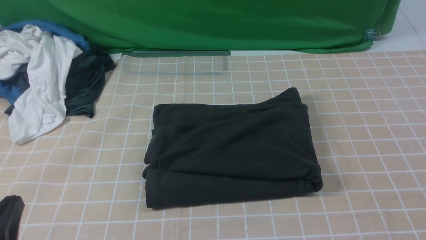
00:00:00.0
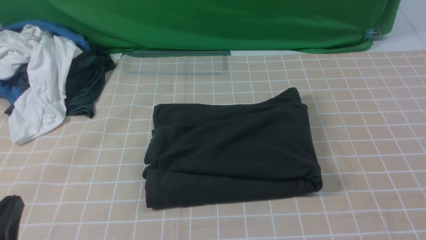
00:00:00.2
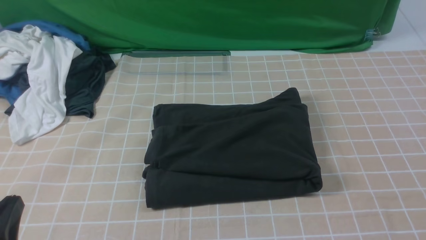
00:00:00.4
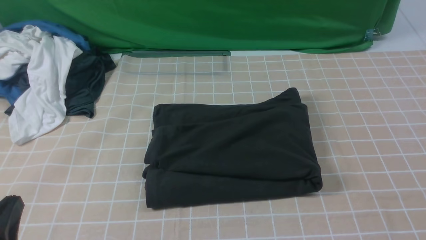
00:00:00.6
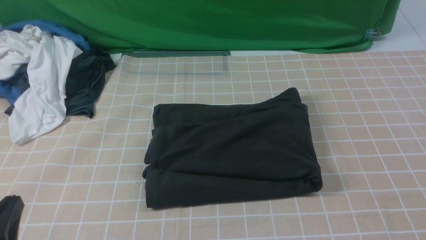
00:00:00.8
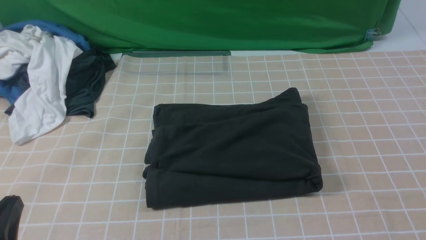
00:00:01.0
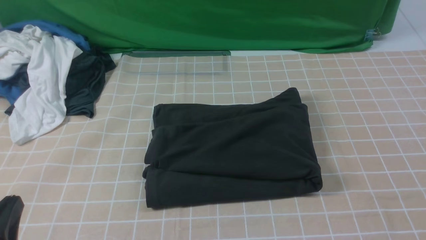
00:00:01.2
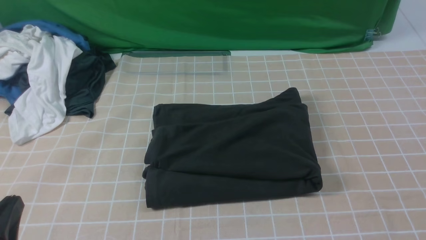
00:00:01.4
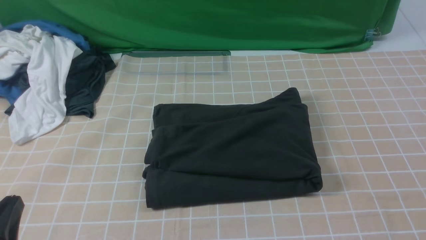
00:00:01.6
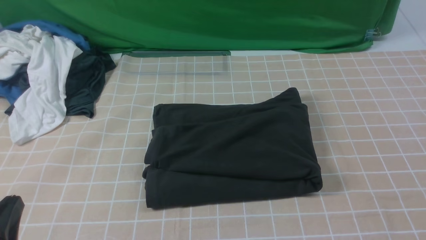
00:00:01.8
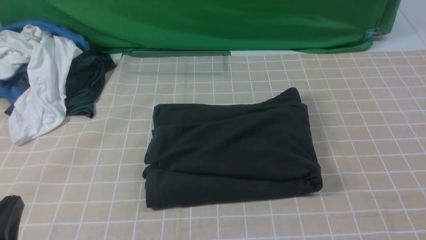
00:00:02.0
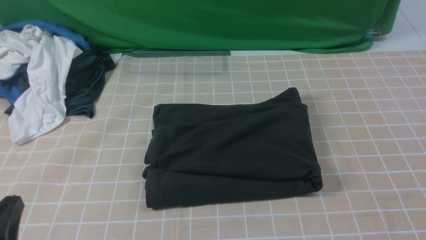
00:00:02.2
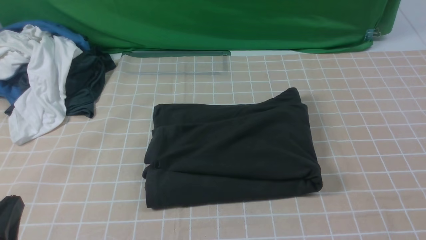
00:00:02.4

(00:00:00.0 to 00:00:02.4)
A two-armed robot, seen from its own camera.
00:00:01.2 - 00:00:02.4: Both grippers stay put.

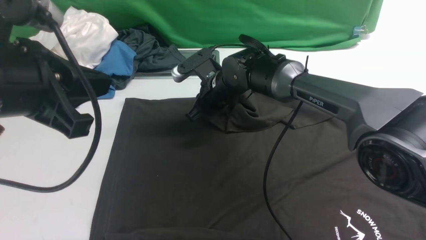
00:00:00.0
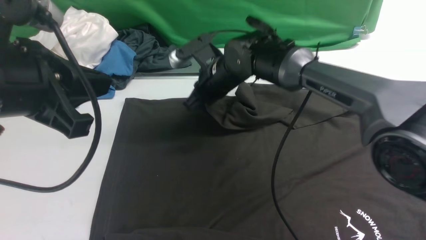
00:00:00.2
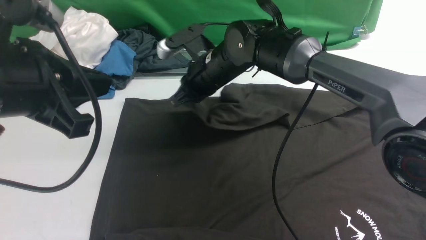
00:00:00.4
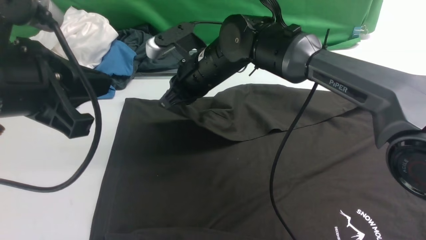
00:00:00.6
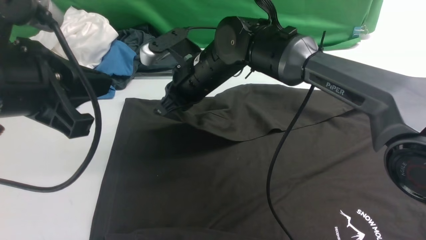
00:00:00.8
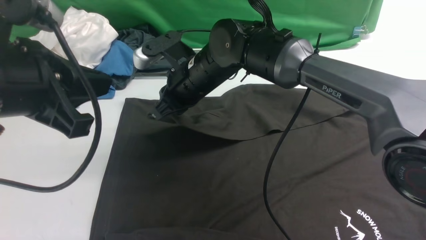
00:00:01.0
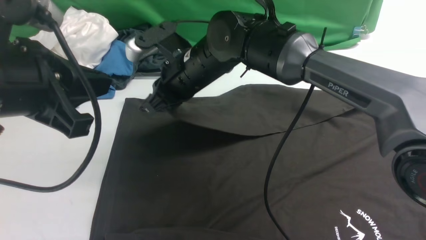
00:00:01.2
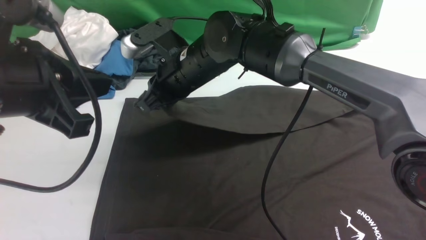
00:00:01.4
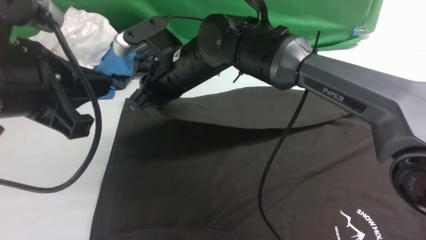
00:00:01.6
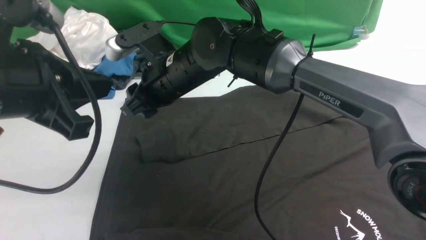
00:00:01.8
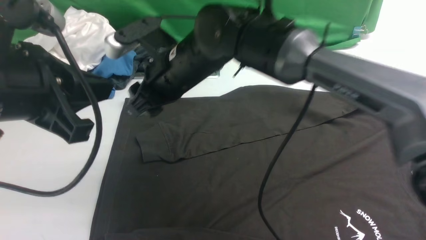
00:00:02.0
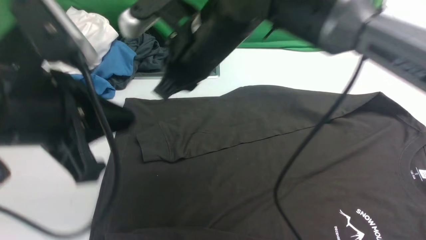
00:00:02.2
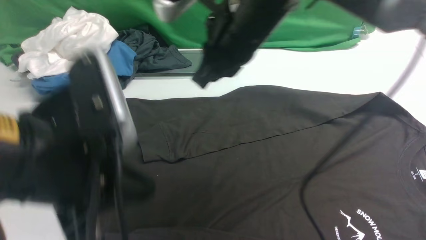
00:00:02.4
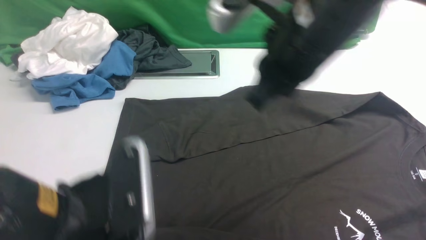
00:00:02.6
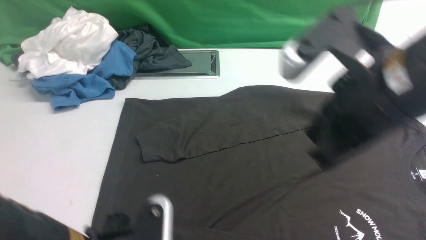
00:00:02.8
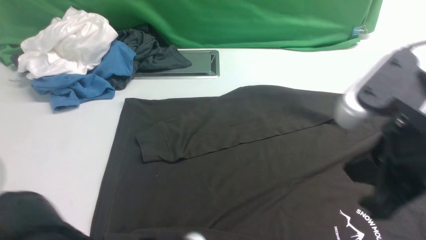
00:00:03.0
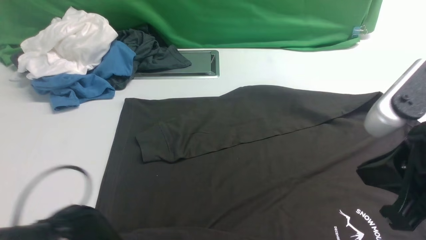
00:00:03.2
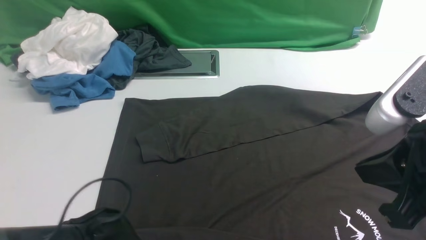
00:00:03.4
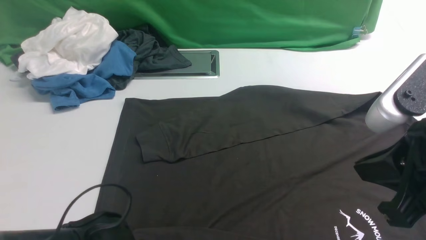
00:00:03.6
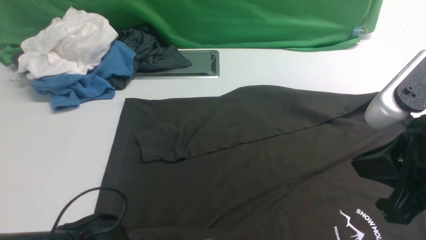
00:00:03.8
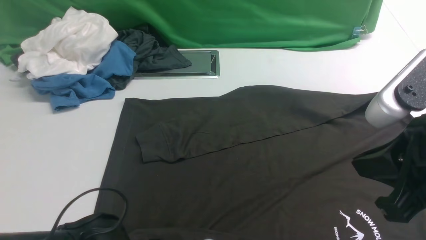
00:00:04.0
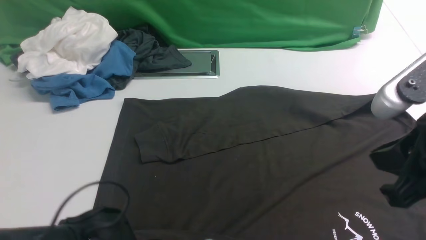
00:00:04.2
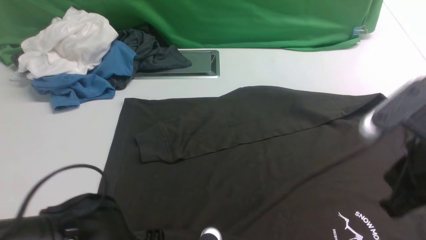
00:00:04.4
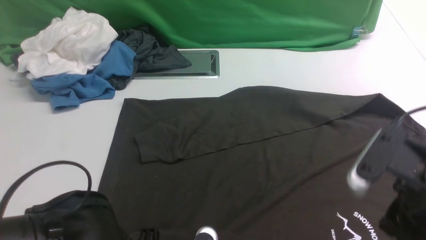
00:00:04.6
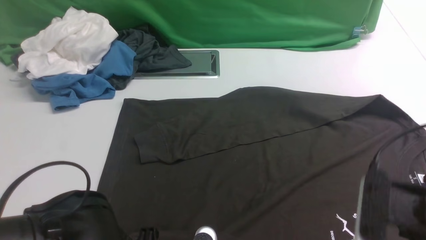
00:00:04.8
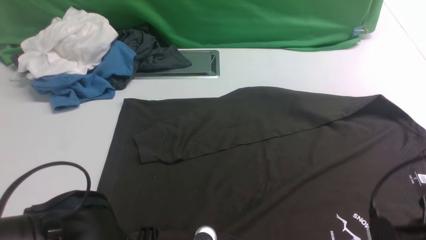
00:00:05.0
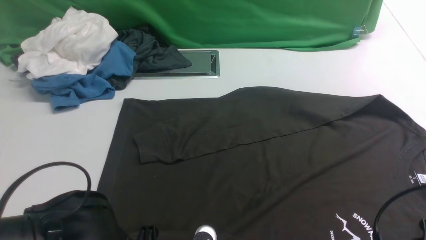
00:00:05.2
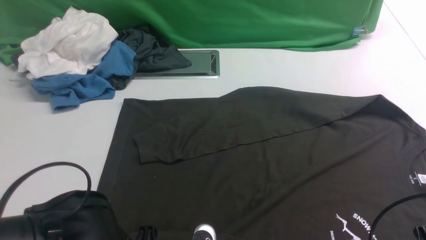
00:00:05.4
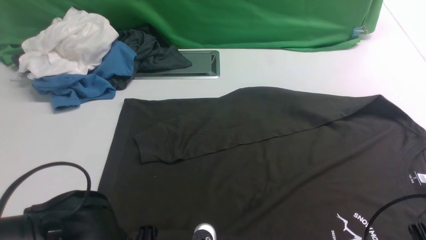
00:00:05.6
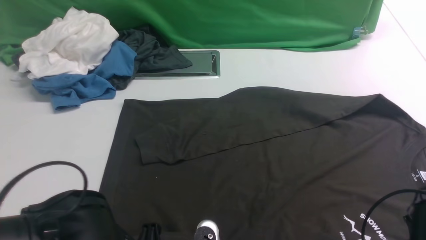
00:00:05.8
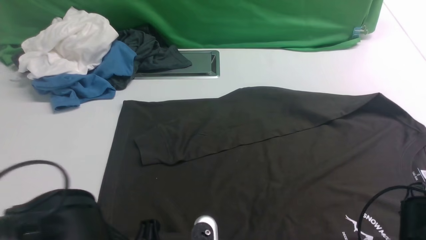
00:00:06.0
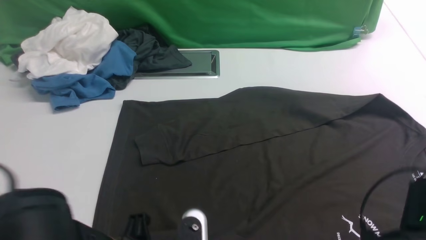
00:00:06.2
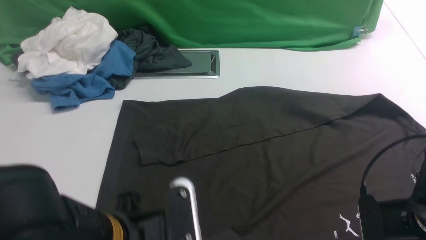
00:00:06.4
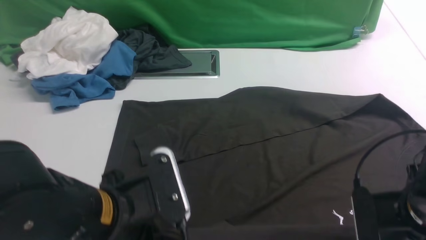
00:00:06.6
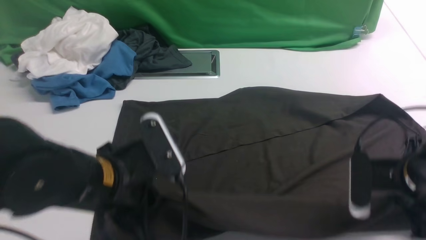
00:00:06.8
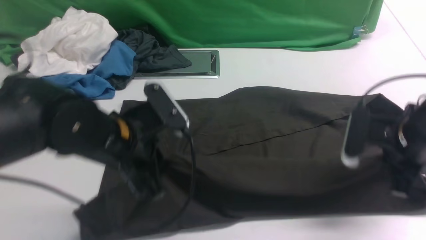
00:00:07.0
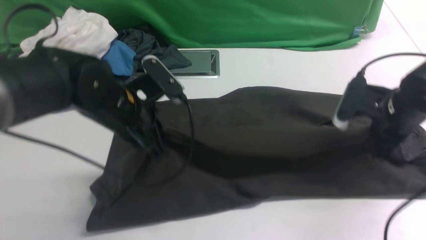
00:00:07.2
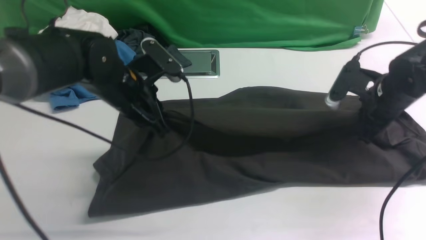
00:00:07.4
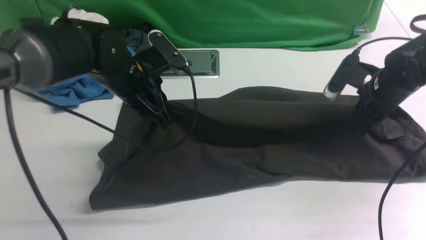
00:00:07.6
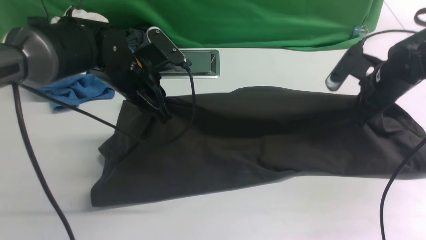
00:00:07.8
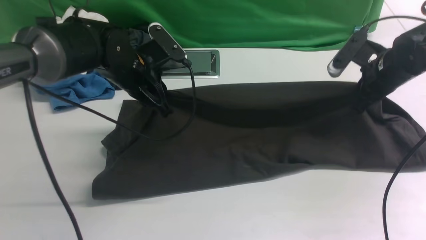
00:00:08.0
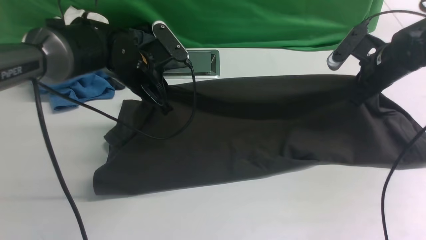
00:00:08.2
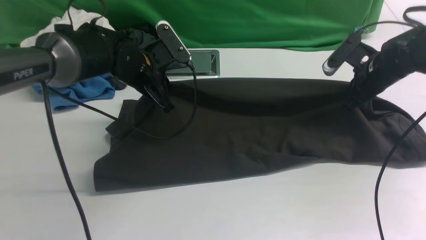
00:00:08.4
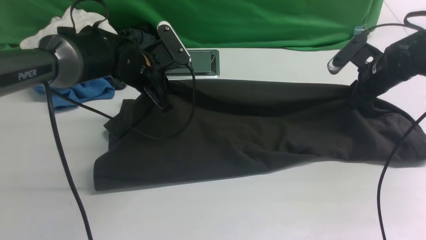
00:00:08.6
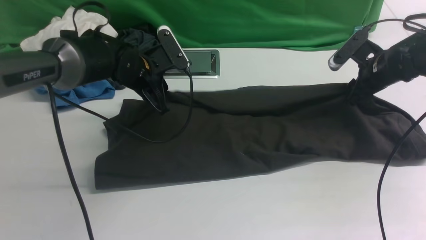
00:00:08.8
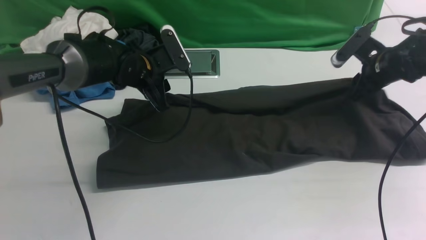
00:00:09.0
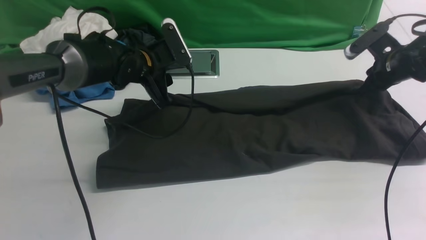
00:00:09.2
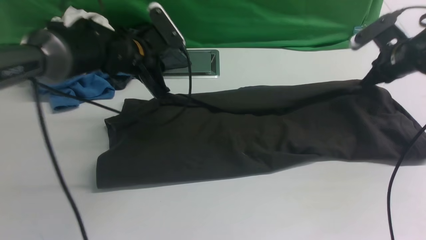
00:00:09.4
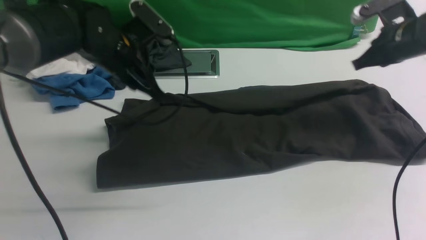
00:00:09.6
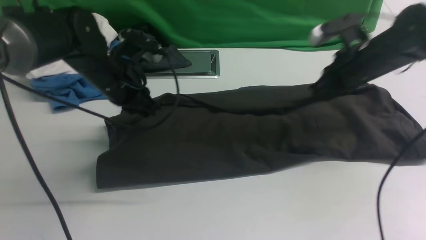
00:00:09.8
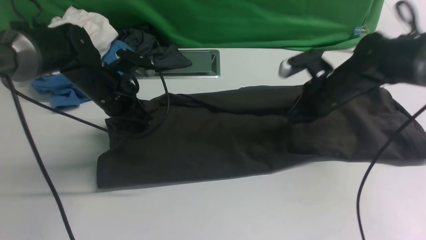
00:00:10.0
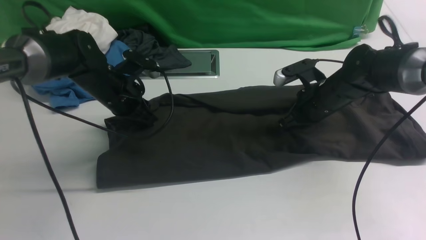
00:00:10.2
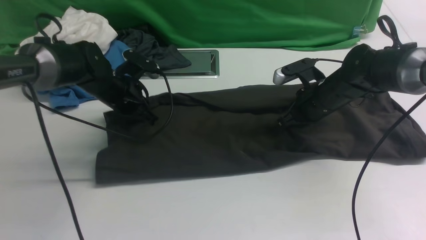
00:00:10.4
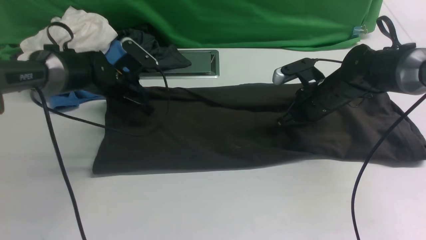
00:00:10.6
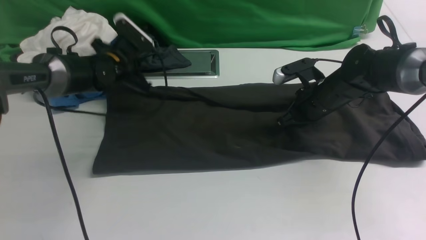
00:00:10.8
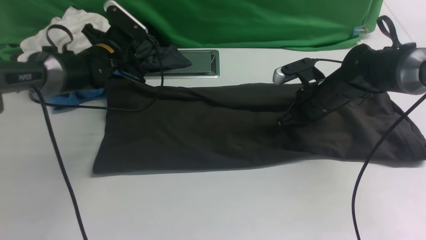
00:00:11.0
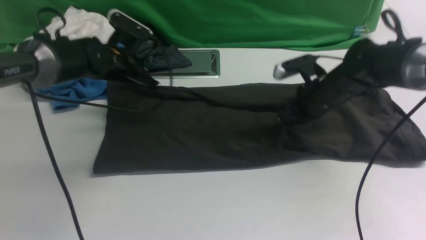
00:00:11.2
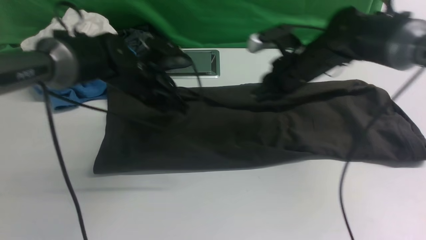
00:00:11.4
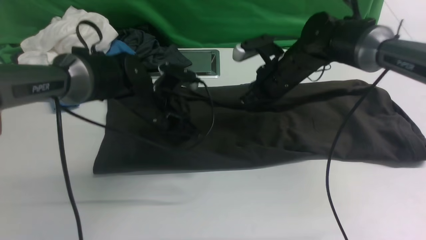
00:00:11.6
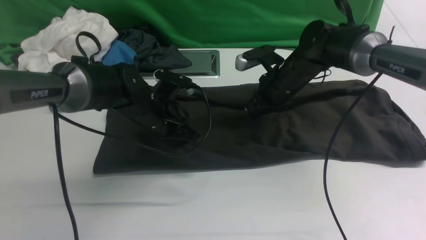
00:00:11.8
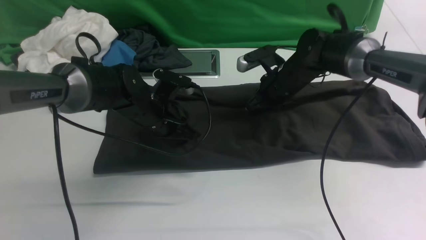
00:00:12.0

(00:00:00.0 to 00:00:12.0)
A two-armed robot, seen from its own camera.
Step, 00:00:00.4 - 00:00:02.0: use the right arm to drag and drop the cuff onto the cuffclosest to the right arm.
Step, 00:00:02.2 - 00:00:06.6: use both arms simultaneously to clamp the lower edge of the clothing fabric.
Step, 00:00:06.8 - 00:00:09.4: use both arms to drag the lower edge of the fabric forward and fold it over the upper edge.
00:00:00.0 - 00:00:01.6: The right gripper is displaced upward, backward and to the left by roughly 15 cm.
00:00:01.6 - 00:00:03.0: The left gripper is displaced downward, to the right and backward by some 20 cm; the right gripper goes roughly 30 cm to the right and backward.
00:00:03.0 - 00:00:04.4: The right gripper shifts approximately 5 cm downward; the left gripper opens and closes again.
00:00:04.4 - 00:00:06.0: The right gripper moves downward, roughly 15 cm, and opens, then closes again.
00:00:06.0 - 00:00:07.6: The two grippers go some 25 cm forward.
00:00:07.6 - 00:00:09.0: The two grippers go roughly 5 cm forward. The left gripper opens up. Meanwhile the right gripper opens up.
00:00:09.0 - 00:00:10.4: The right gripper heads to the left, covering about 15 cm, and closes its fingers; the left gripper goes about 5 cm to the left, and closes up.
00:00:10.4 - 00:00:12.0: The left gripper heads to the right and backward, covering about 10 cm. The right gripper travels to the left and forward by about 10 cm.

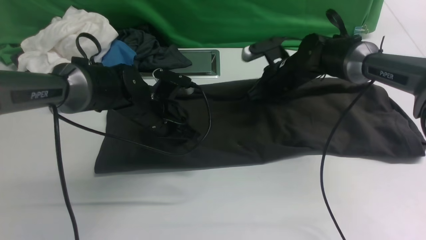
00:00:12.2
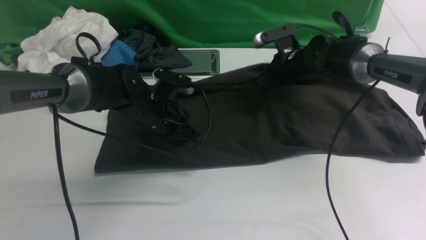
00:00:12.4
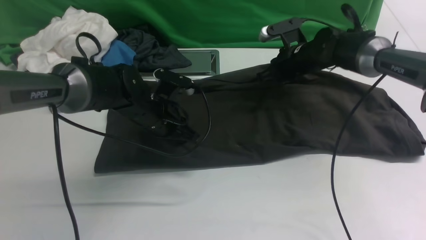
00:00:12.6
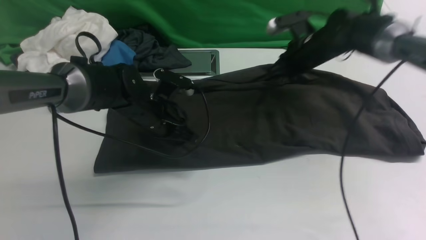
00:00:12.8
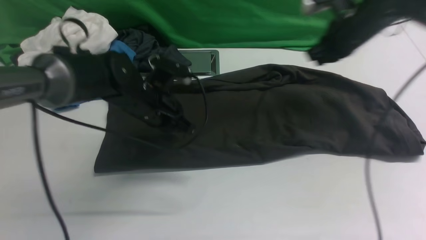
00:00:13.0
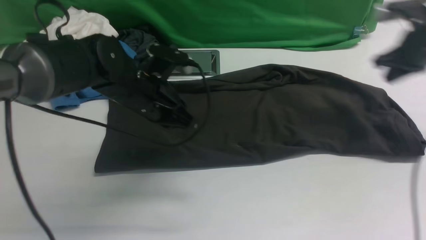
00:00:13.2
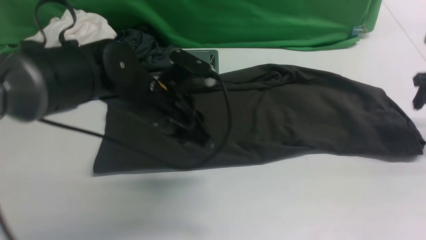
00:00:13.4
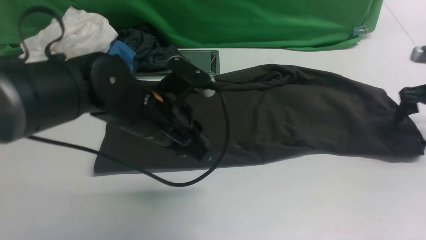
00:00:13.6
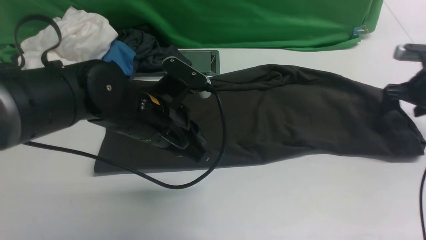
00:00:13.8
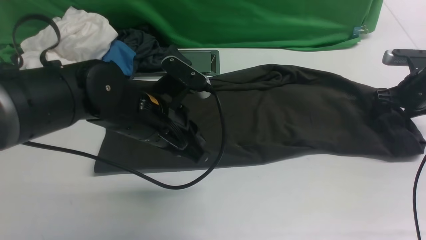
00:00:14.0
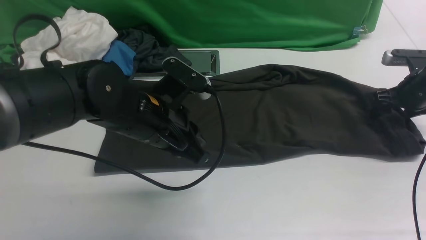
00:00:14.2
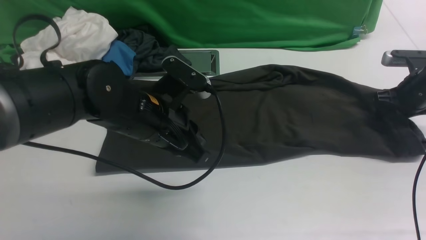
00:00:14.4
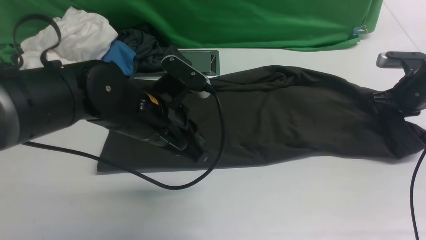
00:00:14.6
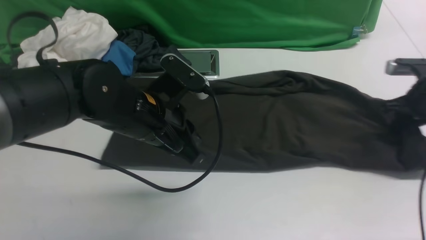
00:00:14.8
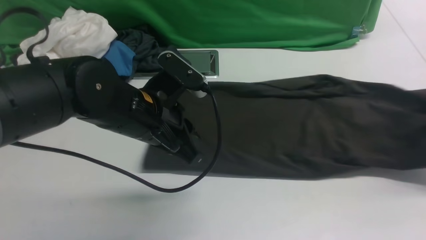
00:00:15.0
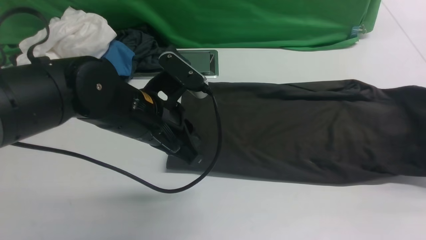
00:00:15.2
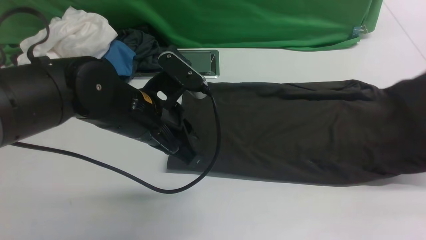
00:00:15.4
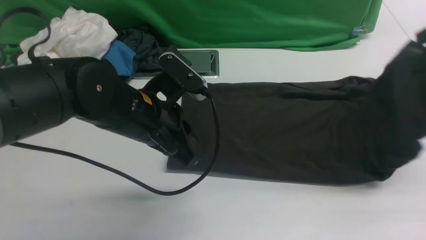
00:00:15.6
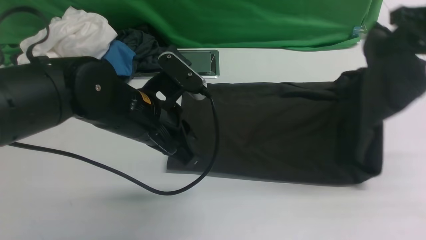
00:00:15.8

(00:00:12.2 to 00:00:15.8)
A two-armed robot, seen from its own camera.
Step, 00:00:12.2 - 00:00:14.6: use the right arm to clamp the right edge of the fabric.
00:00:12.2 - 00:00:14.0: The right gripper goes approximately 25 cm to the right, and opens its fingers, while the left gripper shifts roughly 15 cm backward and upward.
00:00:14.0 - 00:00:15.8: The right gripper shifts roughly 20 cm upward and to the left, and closes.
